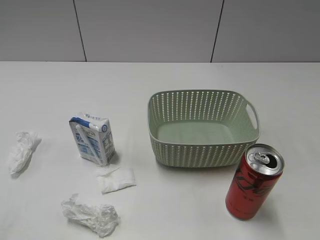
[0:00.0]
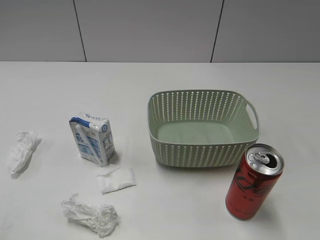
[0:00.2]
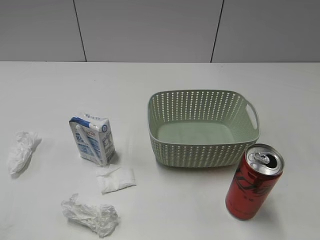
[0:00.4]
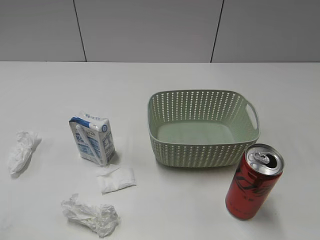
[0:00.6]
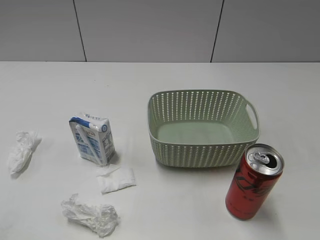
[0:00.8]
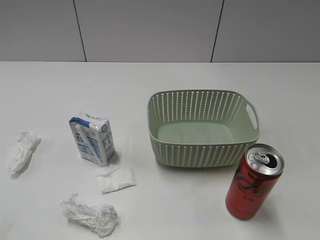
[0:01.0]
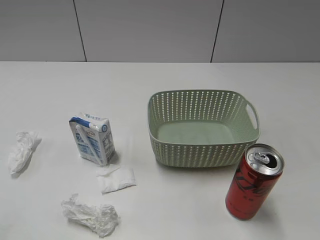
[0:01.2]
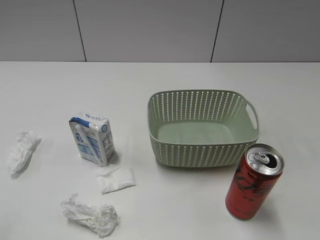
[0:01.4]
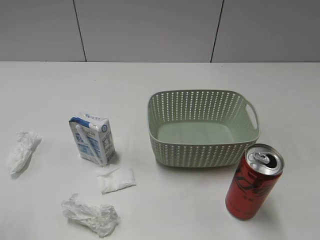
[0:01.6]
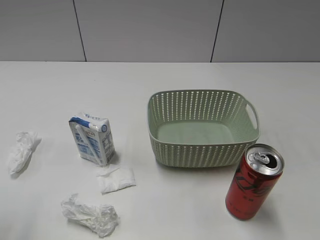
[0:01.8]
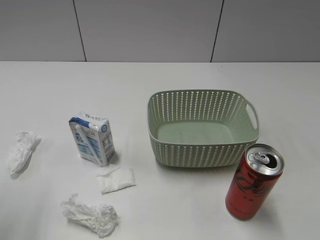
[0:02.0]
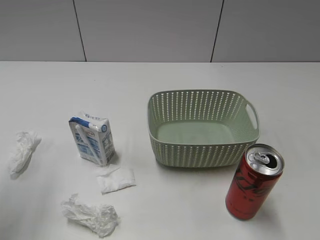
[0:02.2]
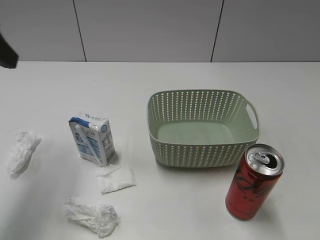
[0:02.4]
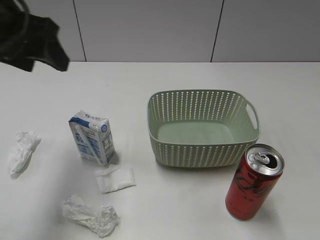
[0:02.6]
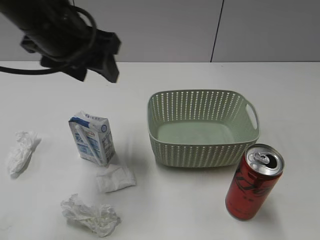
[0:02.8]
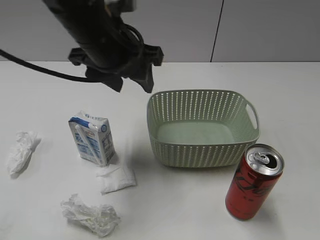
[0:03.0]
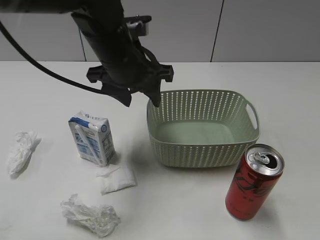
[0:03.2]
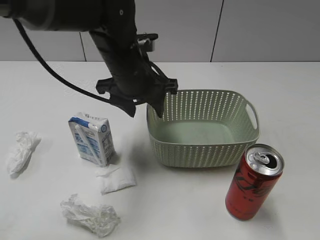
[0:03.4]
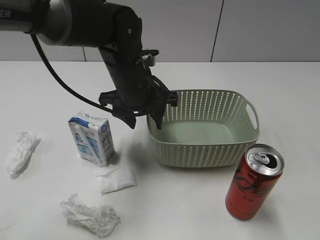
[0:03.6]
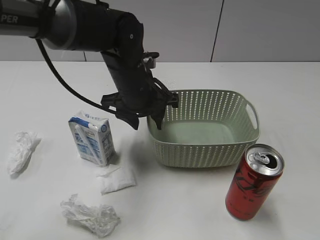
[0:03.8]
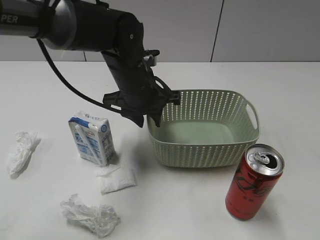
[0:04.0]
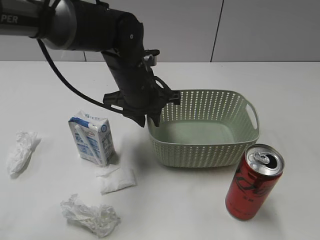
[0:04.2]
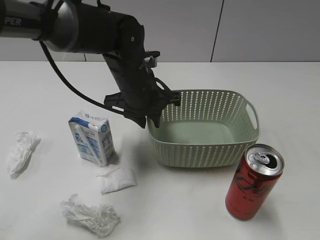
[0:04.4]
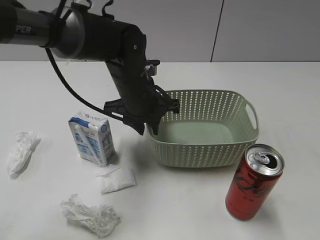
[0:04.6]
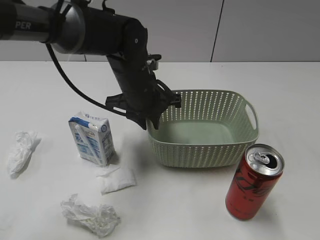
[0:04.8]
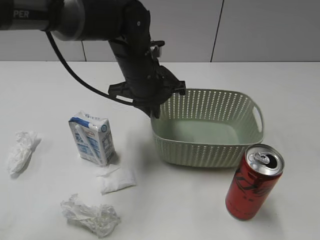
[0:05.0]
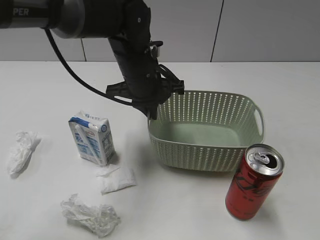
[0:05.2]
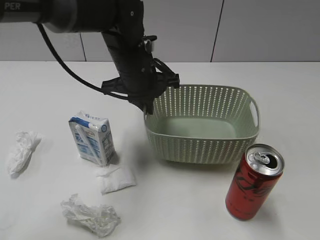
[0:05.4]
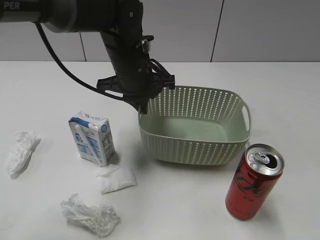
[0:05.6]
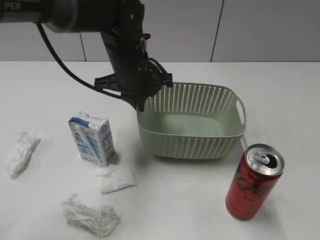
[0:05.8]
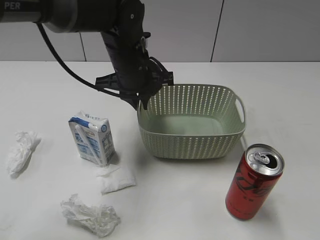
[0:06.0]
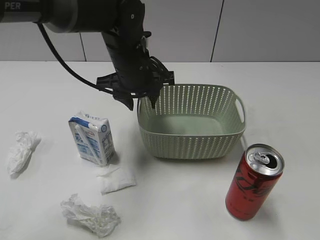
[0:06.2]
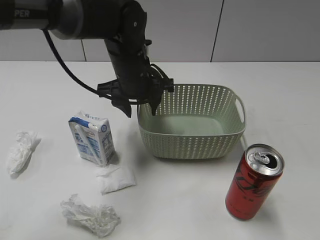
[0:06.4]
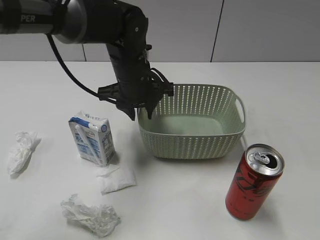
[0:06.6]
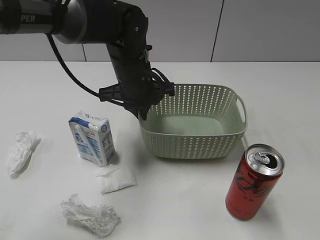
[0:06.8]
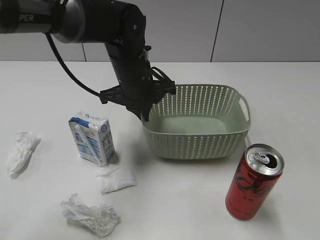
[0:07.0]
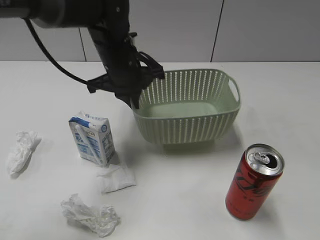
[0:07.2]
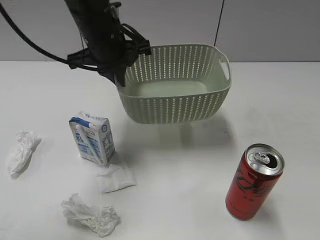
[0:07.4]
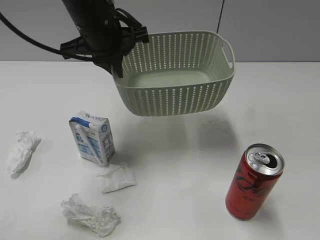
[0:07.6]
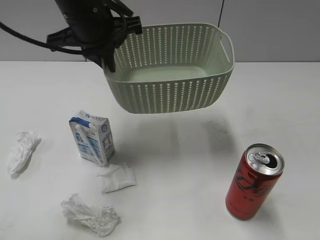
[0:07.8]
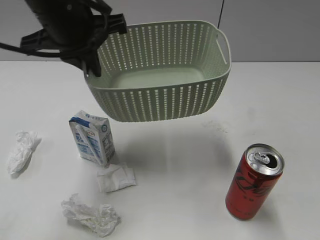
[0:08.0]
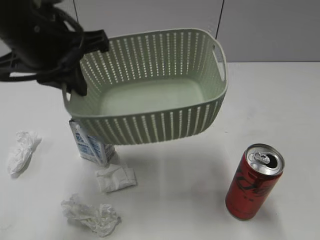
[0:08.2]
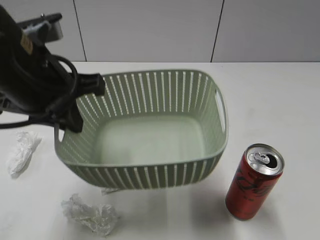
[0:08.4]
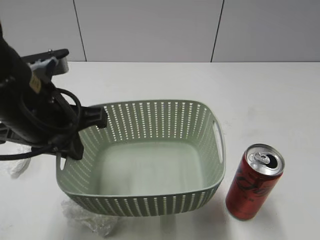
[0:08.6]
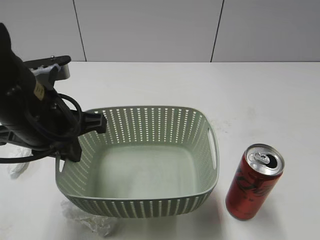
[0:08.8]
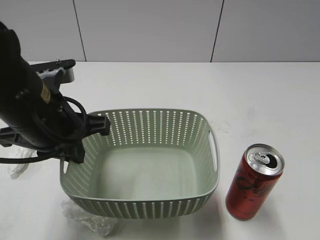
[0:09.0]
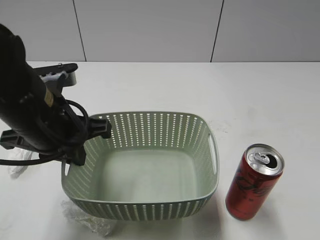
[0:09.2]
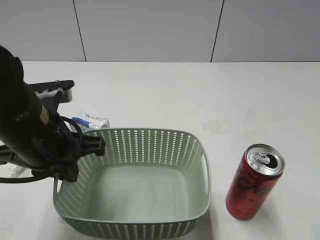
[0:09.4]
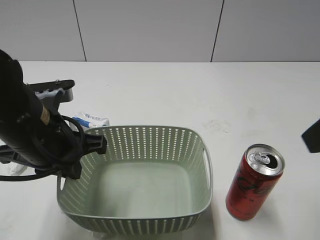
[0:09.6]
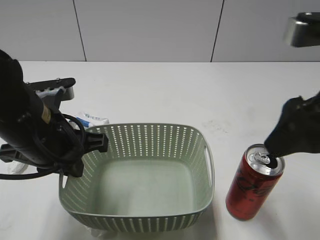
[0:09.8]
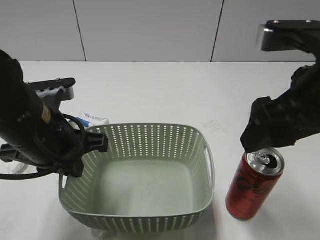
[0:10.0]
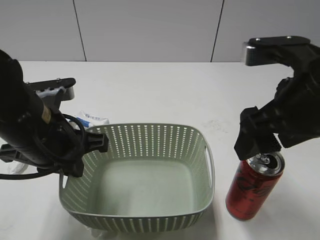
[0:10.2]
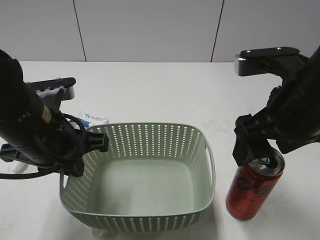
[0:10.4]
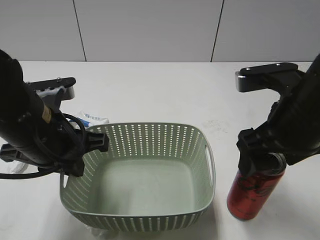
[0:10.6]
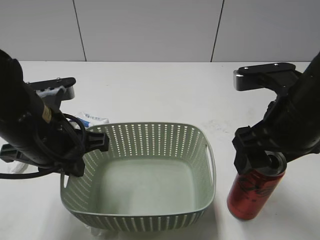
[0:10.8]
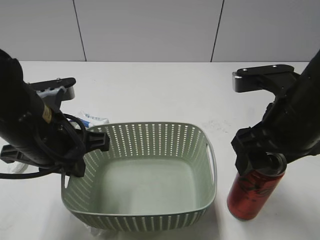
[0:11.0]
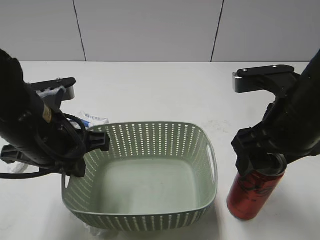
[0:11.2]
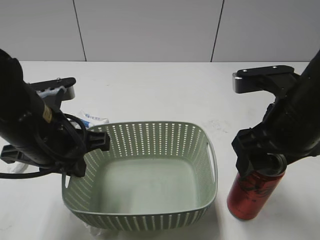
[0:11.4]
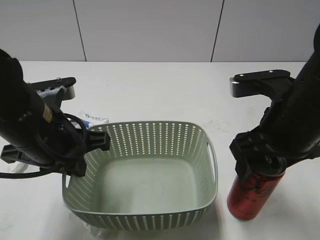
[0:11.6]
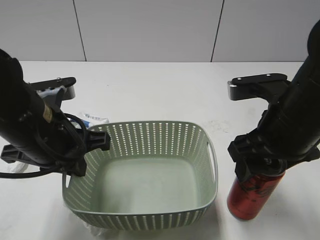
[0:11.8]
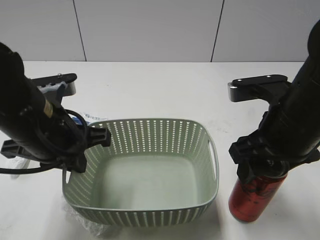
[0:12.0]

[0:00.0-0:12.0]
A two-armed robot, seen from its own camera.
Step, 0:02.4 to 0:05.2: Grasp the basket with left gripper.
Step, 0:05.4 to 0:09.4: Lift the basket with left gripper.
0:01.6 to 0:03.0: The left gripper moves to the right and forward, approximately 30 cm.
0:03.0 to 0:04.4: The left gripper shifts about 10 cm downward, and closes its fingers.
0:04.4 to 0:06.0: The grippers make only small movements.
0:06.0 to 0:07.6: The left gripper goes roughly 10 cm upward, and opens and closes again.
0:07.6 to 0:09.0: The left gripper heads backward, covering roughly 15 cm; the right gripper ends up some 5 cm from where it was, and opens its fingers.
0:09.0 to 0:10.4: The right gripper travels forward and to the left by about 20 cm, and closes, then opens again.
0:10.4 to 0:12.0: The right gripper closes its fingers.

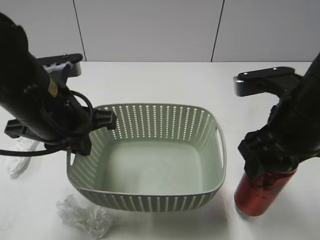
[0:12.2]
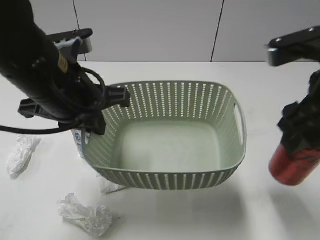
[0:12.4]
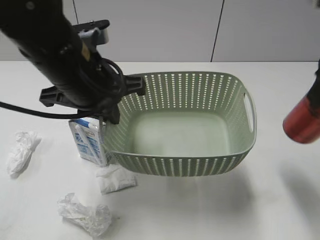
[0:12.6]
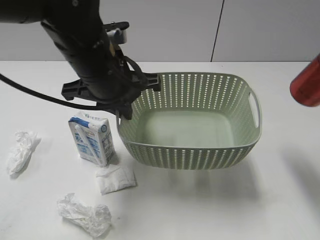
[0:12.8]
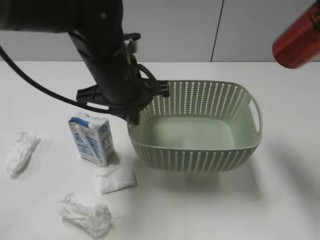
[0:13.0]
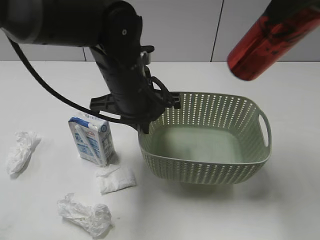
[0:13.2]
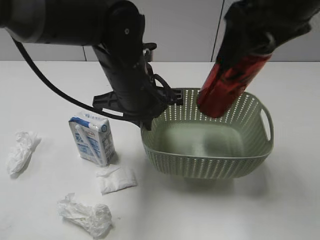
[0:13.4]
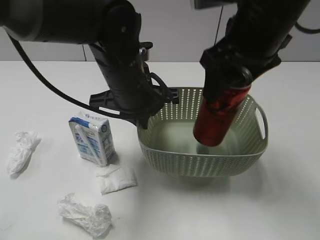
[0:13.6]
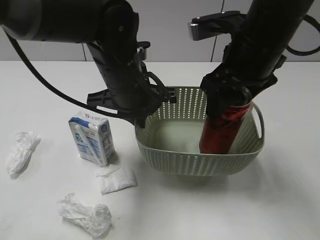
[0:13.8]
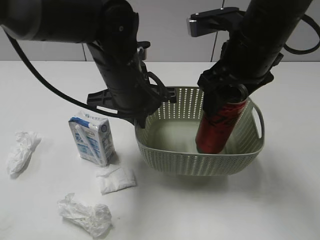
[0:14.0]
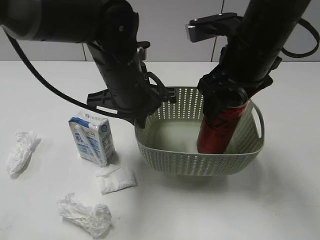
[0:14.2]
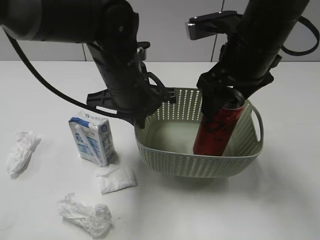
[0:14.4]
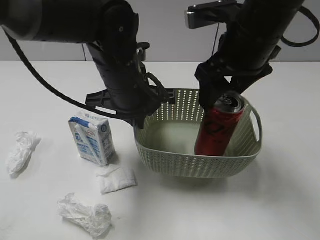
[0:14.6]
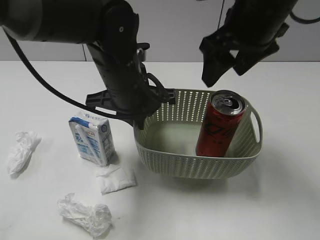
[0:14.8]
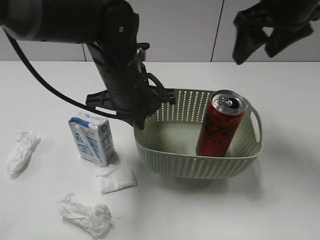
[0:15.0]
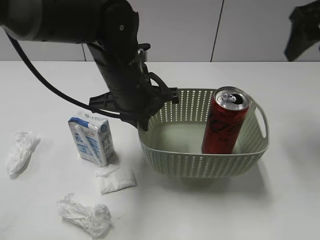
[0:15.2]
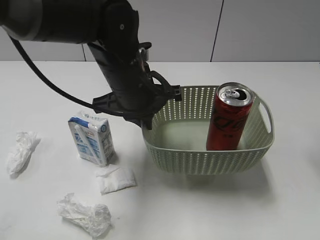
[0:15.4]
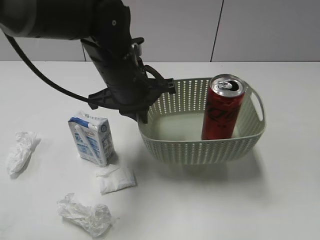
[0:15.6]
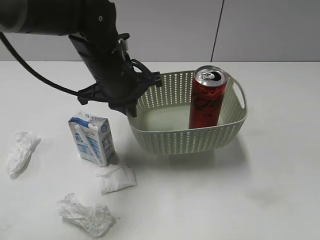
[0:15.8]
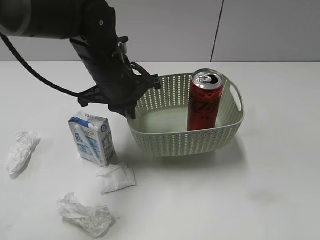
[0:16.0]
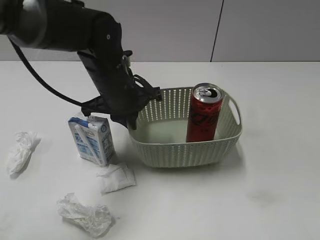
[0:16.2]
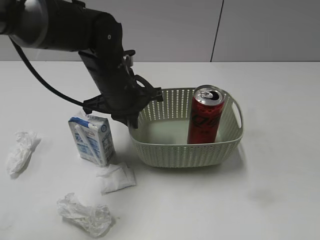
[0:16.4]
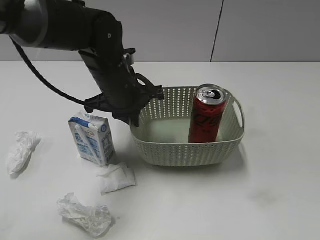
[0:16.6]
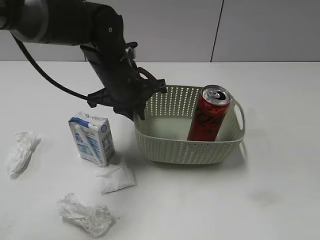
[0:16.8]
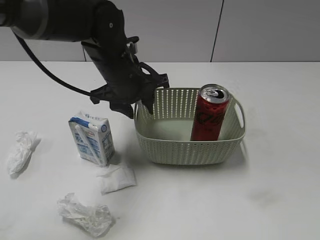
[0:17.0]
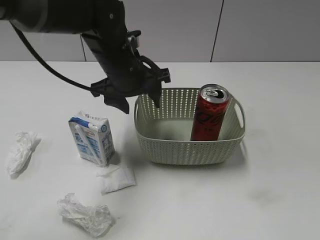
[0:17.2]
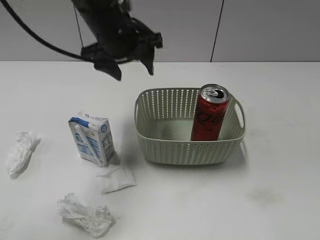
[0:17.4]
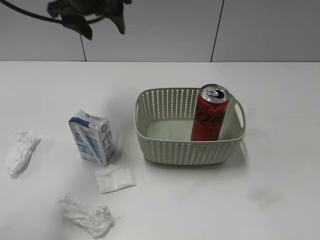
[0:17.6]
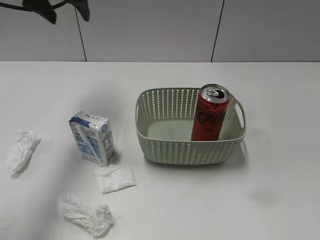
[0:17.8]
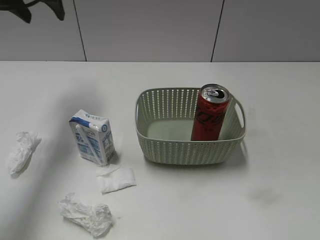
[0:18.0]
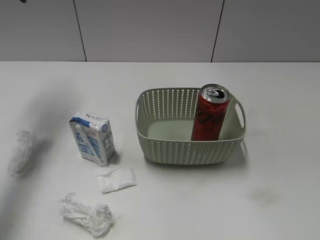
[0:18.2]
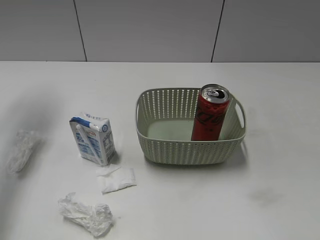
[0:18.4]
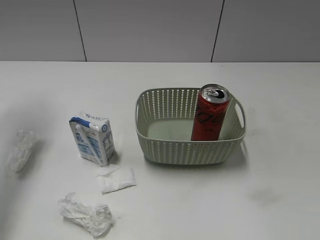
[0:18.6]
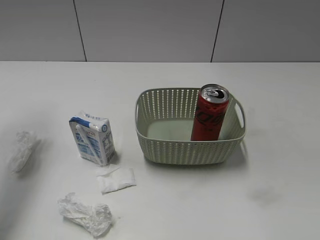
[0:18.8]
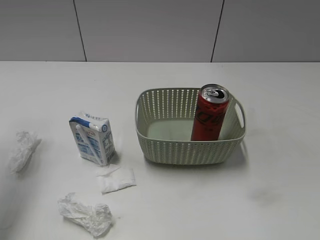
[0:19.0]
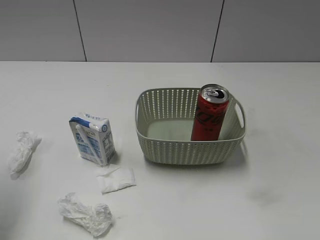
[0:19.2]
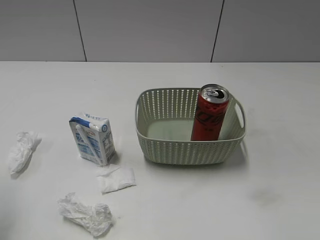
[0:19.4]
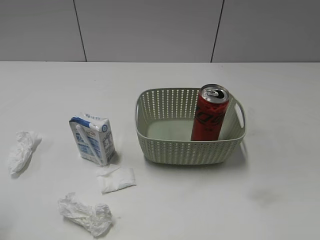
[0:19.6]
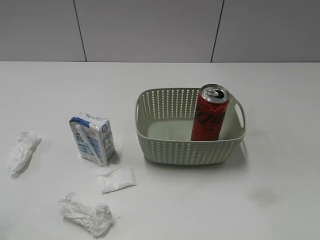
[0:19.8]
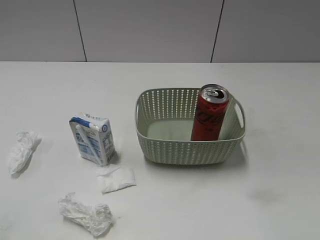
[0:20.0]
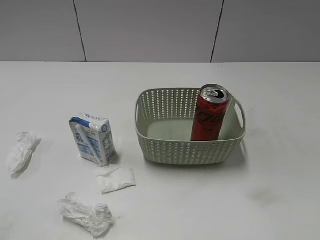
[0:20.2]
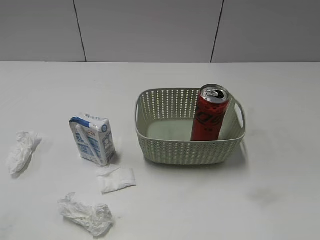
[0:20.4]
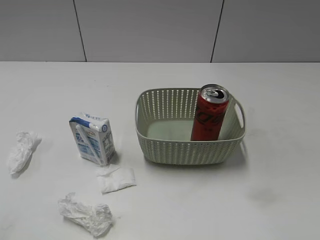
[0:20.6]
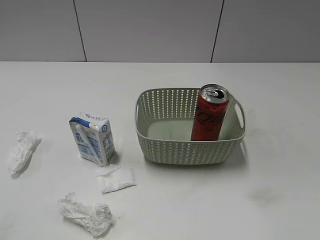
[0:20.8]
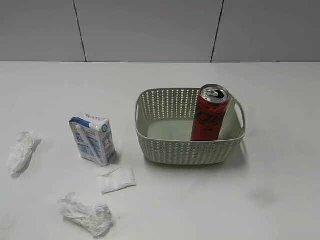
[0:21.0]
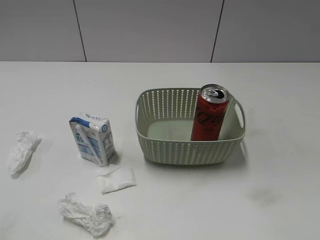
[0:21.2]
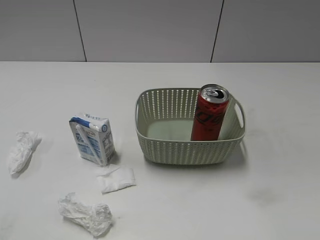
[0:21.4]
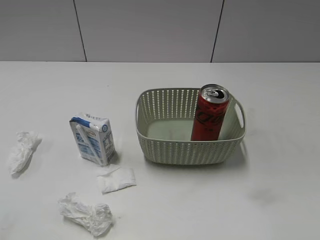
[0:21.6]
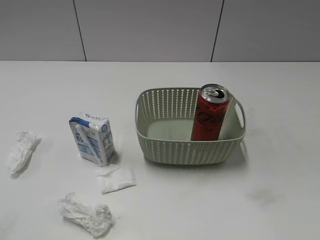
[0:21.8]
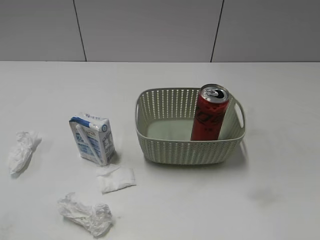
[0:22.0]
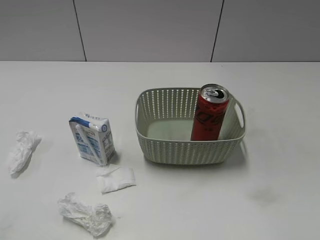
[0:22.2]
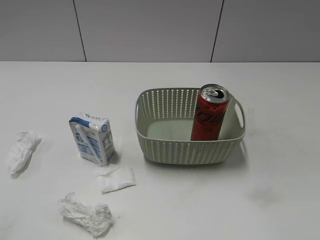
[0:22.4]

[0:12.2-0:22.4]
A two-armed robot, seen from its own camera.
Step, 0:12.2 to 0:14.8: Place the cola can in the basket with right gripper.
Step, 0:15.0 to 0:17.2: Place the basket on the table with left gripper.
0:12.2 to 0:13.6: The left gripper shifts some 10 cm to the right and forward. The right gripper heads upward and forward, covering approximately 10 cm.
0:13.6 to 0:15.2: The right gripper goes about 15 cm to the right and forward, and opens its fingers.
0:15.2 to 0:16.6: The left gripper moves about 5 cm. Meanwhile the right gripper shifts approximately 30 cm backward.
0:16.6 to 0:18.0: The left gripper moves upward, to the left and forward, roughly 25 cm, and opens its fingers.
0:18.0 to 0:19.4: The left gripper is displaced backward by some 25 cm.
